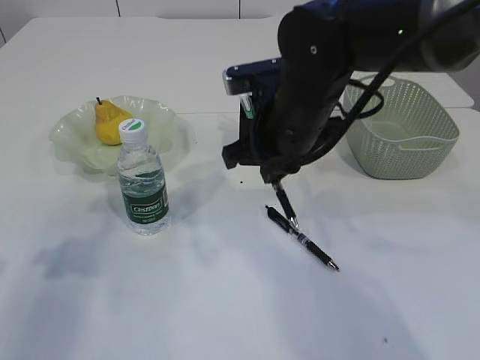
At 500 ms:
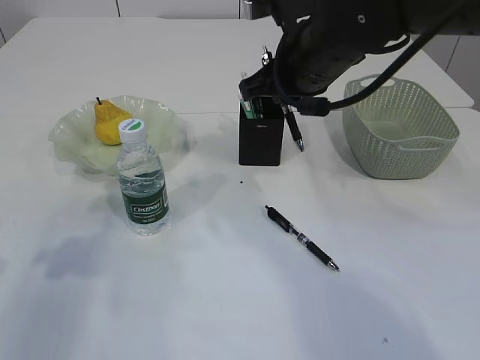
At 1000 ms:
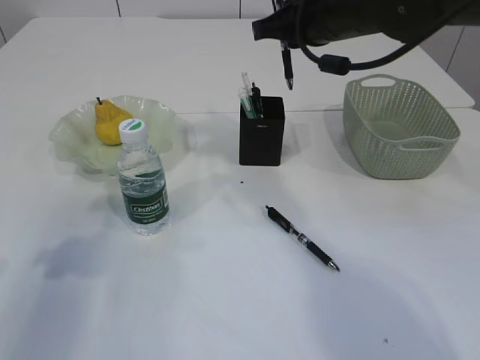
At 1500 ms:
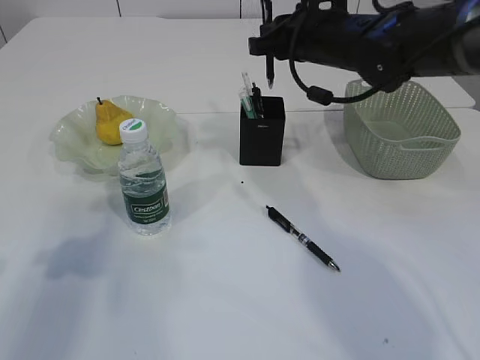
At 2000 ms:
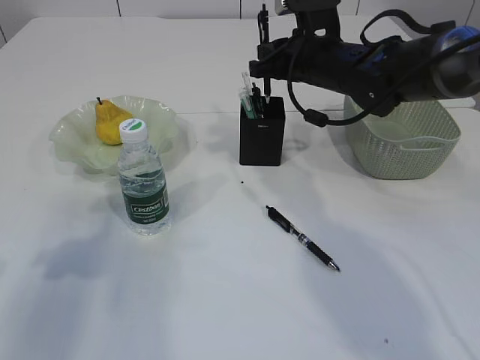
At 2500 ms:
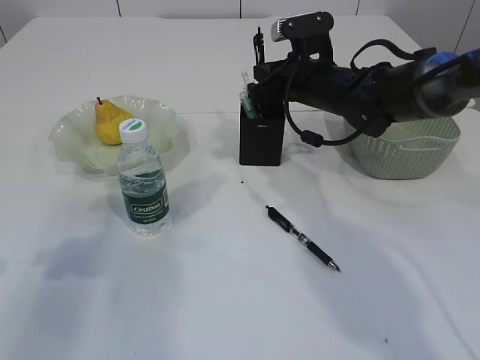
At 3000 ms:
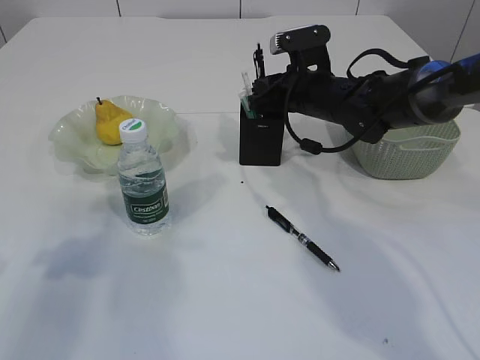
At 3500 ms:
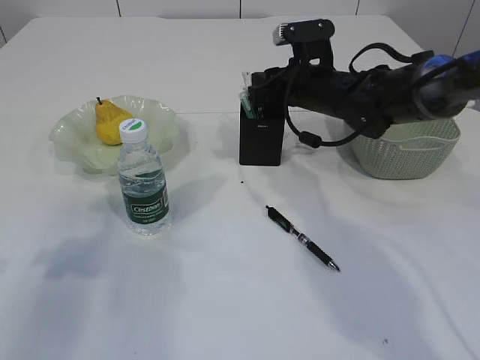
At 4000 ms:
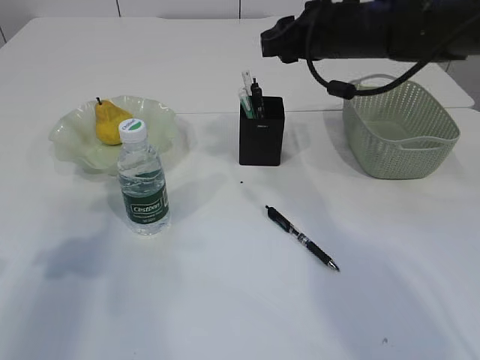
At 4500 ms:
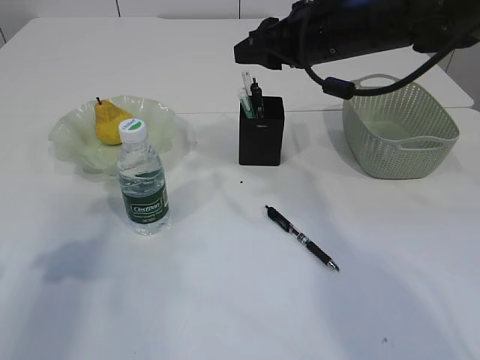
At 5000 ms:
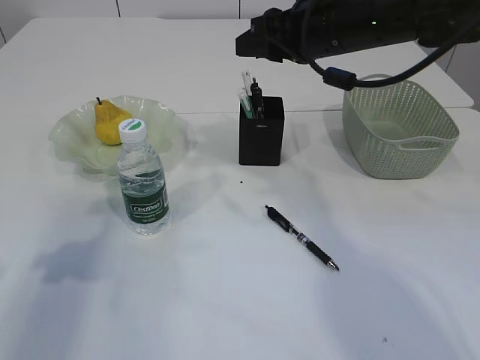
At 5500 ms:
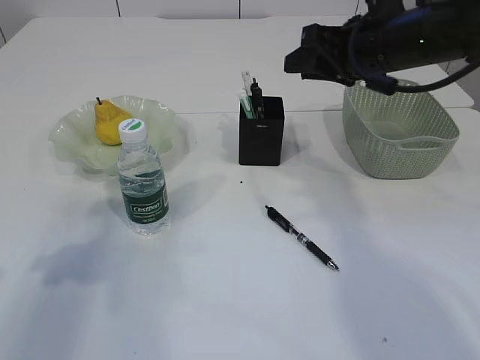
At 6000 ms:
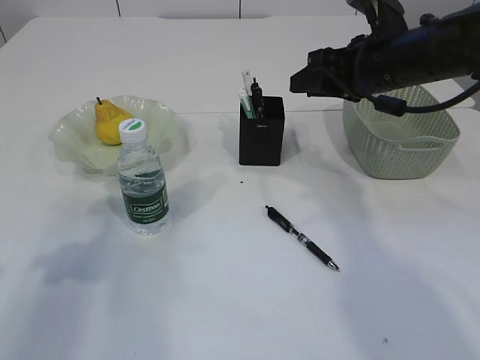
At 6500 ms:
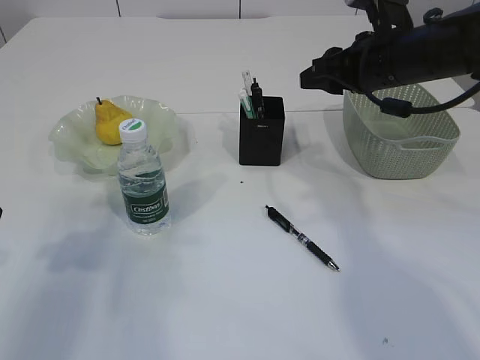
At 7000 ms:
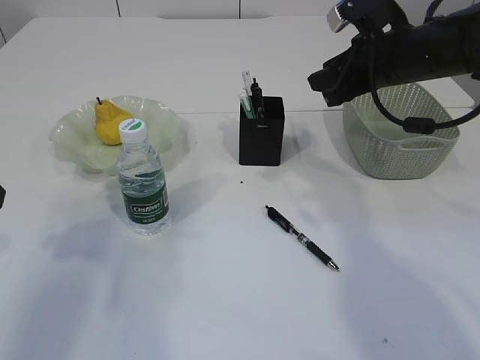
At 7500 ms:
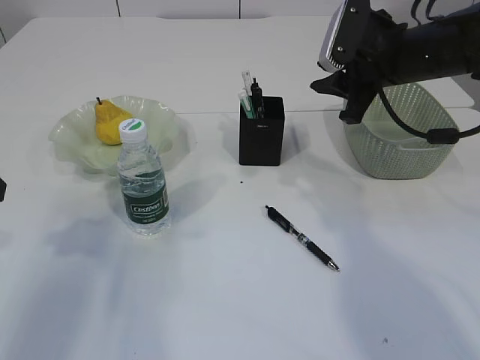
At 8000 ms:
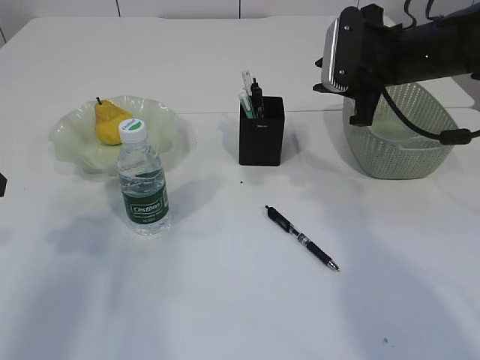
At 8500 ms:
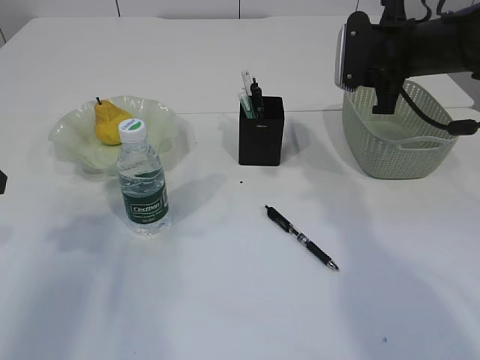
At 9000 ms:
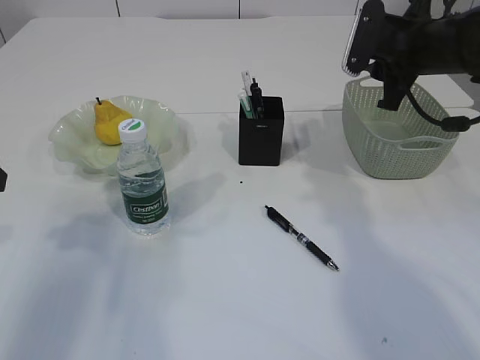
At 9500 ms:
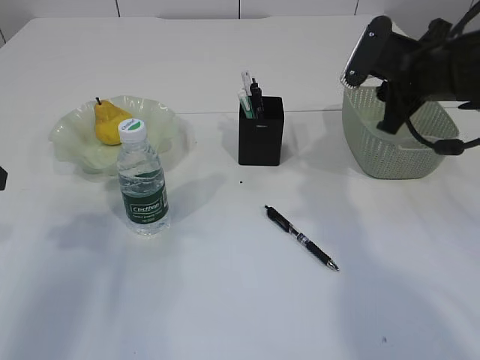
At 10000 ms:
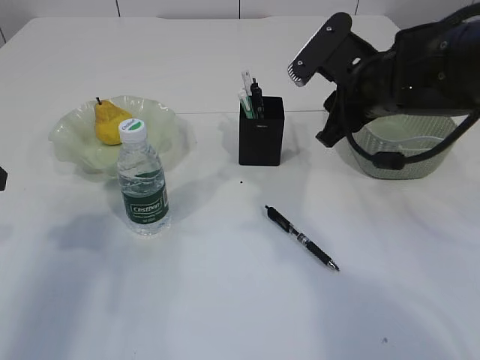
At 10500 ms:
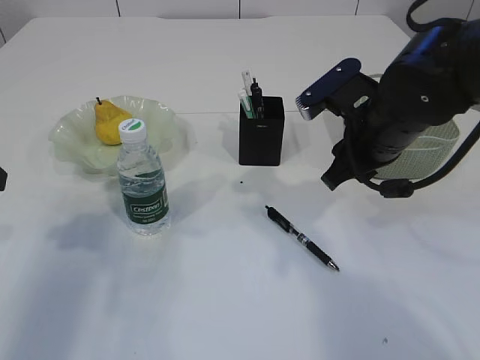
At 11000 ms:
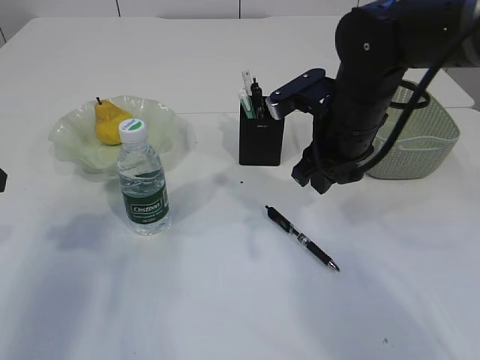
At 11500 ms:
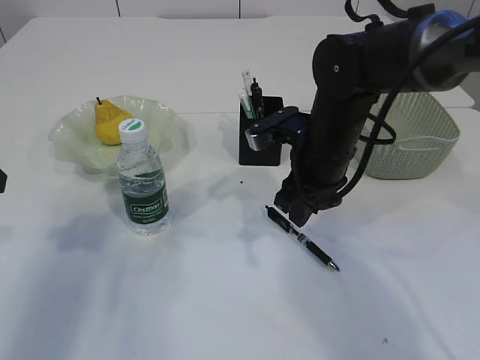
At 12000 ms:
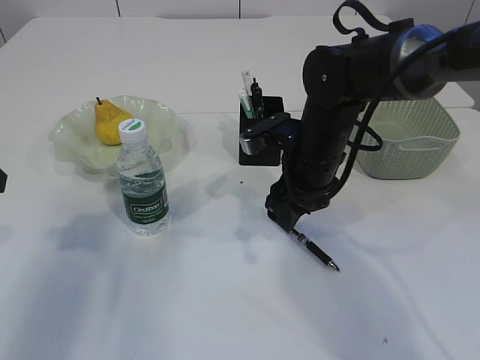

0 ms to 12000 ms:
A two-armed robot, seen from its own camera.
Step, 0 ms to 3500 ms: Place the pen into the pen holder.
0 ms to 2000 ms: The right gripper shifts roughly 15 cm forward and to the right.
2000 ms to 4000 ms: The right gripper moves upward, some 5 cm, and opens.
4000 ms to 6000 ms: The right gripper changes place by some 5 cm.
8000 ms to 10000 ms: The right gripper shifts by some 5 cm.
10000 ms to 12000 ms: The right gripper heads downward and to the left, covering about 10 cm.

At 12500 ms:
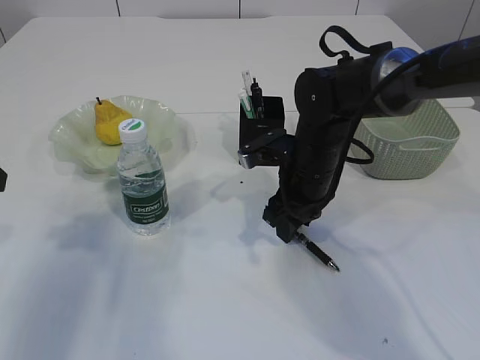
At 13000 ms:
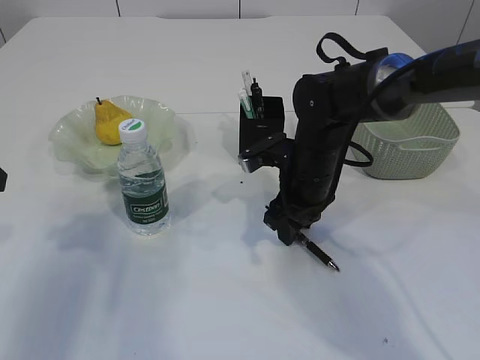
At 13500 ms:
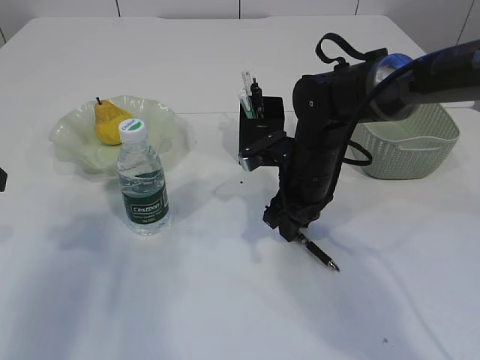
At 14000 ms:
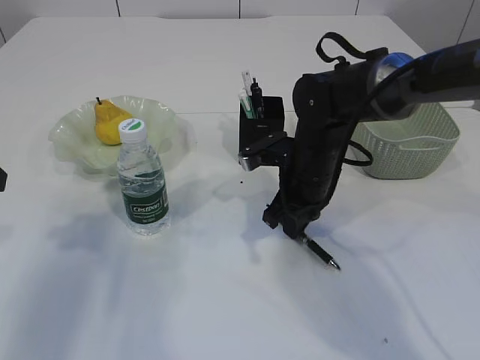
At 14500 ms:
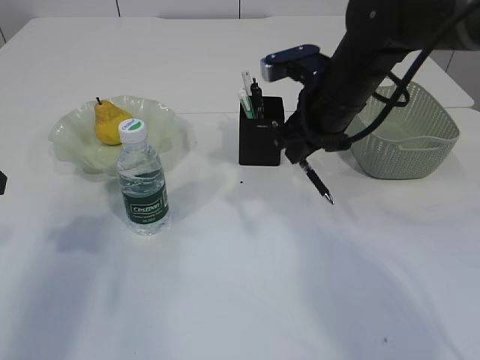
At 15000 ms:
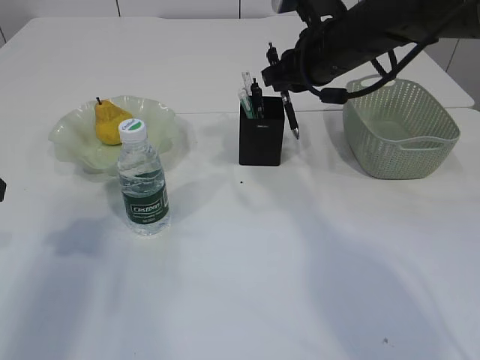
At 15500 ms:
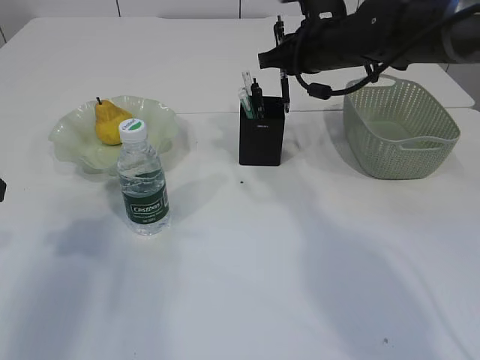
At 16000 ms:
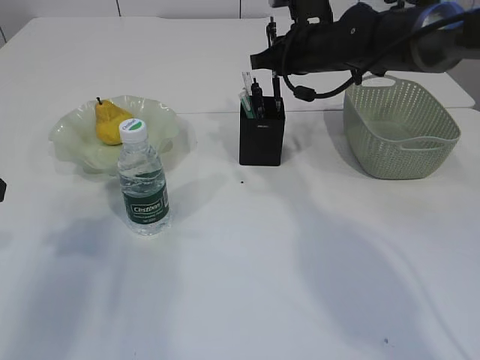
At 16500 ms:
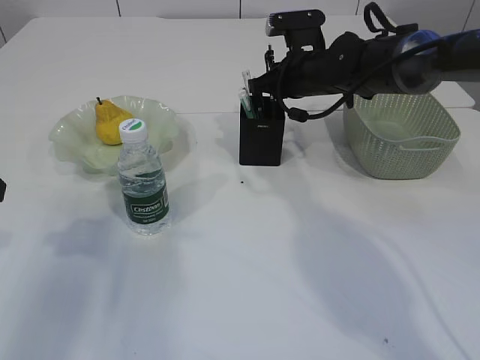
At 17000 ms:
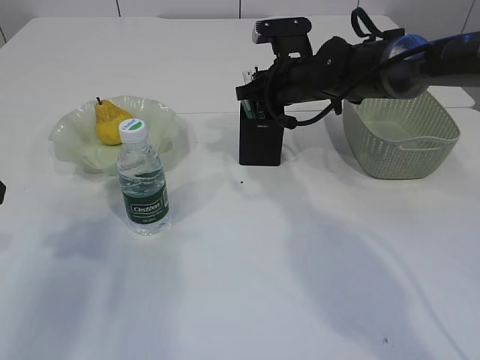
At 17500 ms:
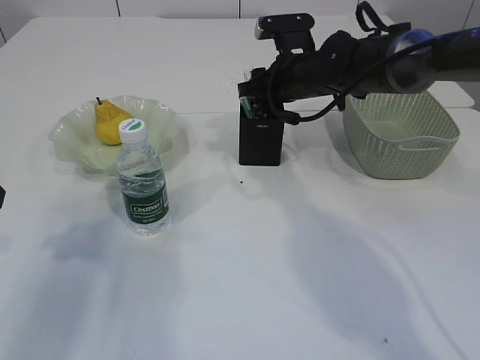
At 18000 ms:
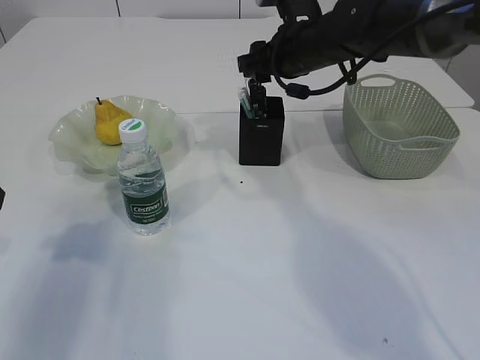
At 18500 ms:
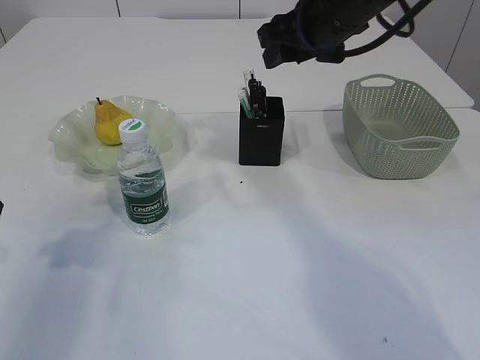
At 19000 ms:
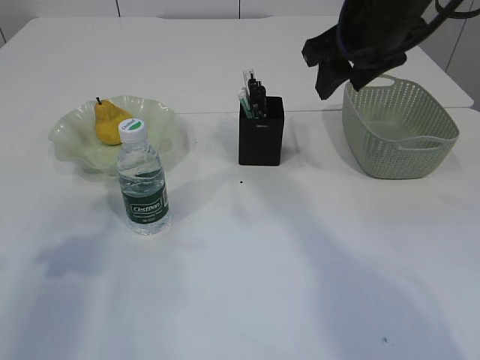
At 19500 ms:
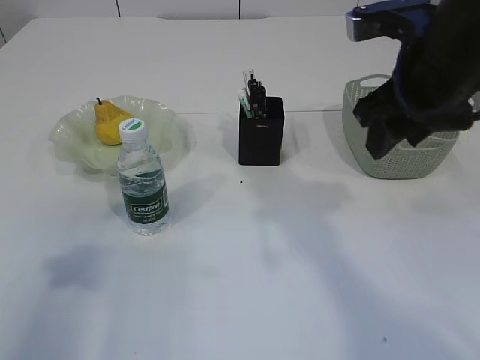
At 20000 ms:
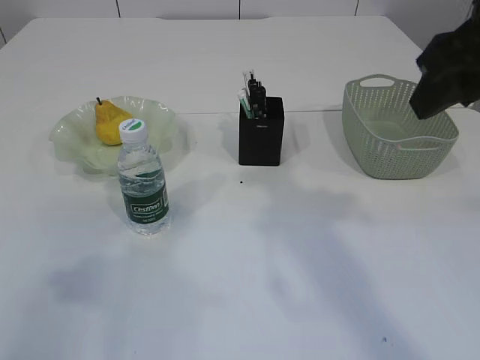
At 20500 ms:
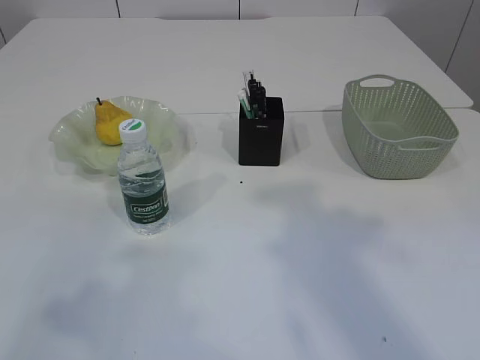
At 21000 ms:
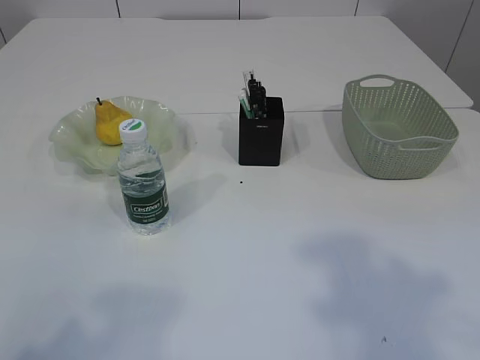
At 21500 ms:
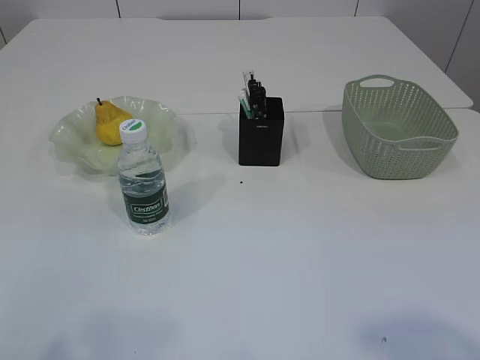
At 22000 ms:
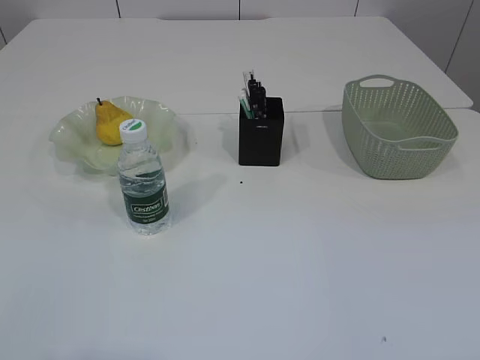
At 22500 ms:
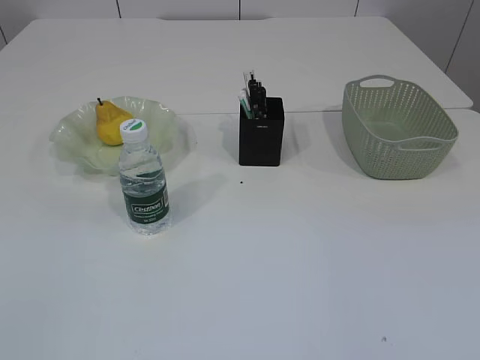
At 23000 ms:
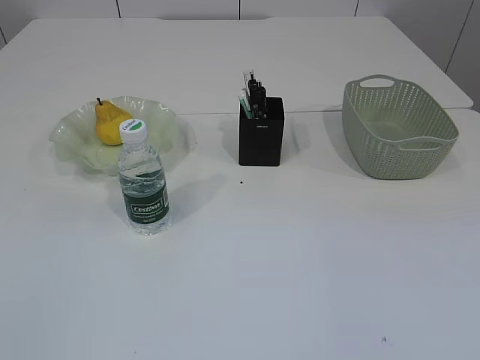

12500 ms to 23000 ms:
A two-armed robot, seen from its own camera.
Step, 14500 ms to 18000 ms: Place the pen into the pen holder.
12500 ms to 14500 ms: The right gripper heads upward, covering approximately 10 cm, and closes up.
14500 ms to 16500 ms: The right gripper shifts about 10 cm forward.
16500 ms to 19000 ms: The right gripper heads upward and backward, covering roughly 20 cm, and opens its fingers.
19000 ms to 21000 ms: The right gripper shifts roughly 30 cm backward; the left gripper moves backward, about 20 cm.
21000 ms to 23000 ms: The right gripper shifts roughly 15 cm backward and downward. Meanwhile the left gripper is displaced backward by about 5 cm.
